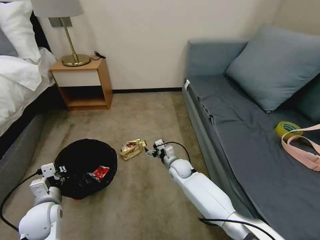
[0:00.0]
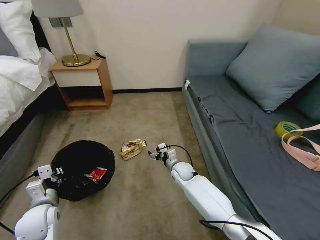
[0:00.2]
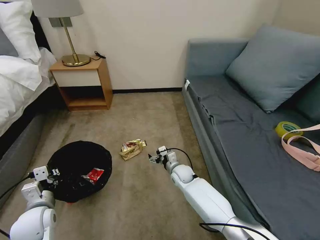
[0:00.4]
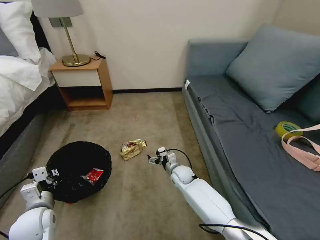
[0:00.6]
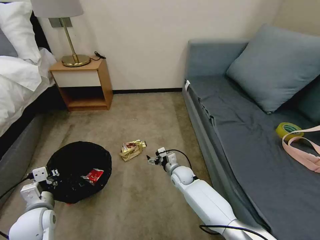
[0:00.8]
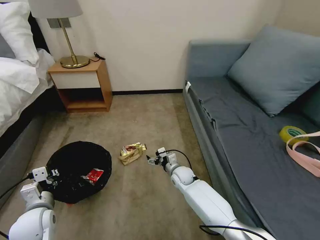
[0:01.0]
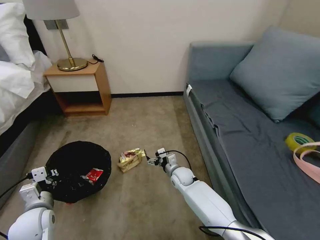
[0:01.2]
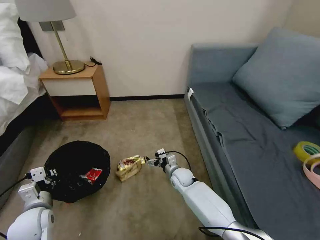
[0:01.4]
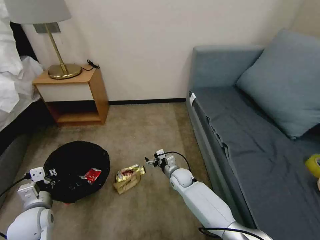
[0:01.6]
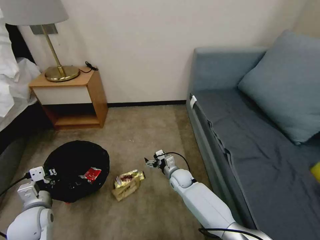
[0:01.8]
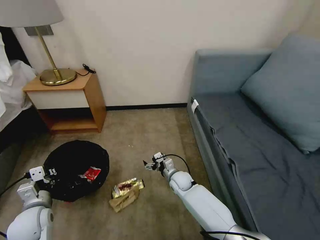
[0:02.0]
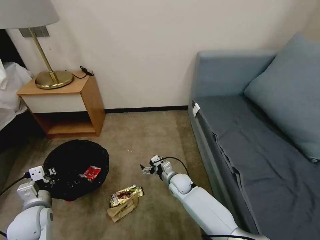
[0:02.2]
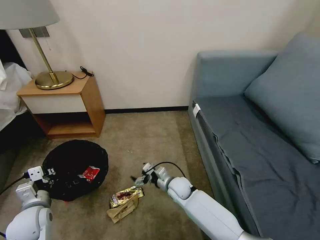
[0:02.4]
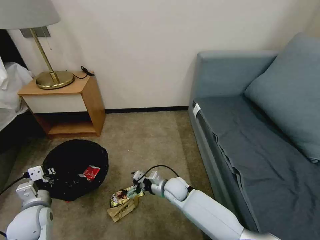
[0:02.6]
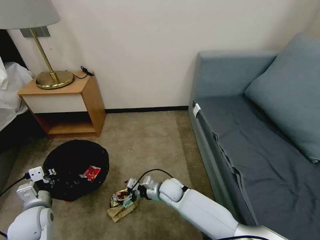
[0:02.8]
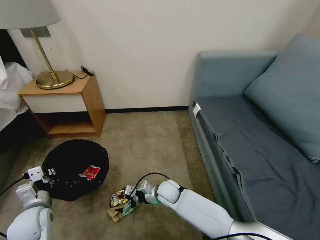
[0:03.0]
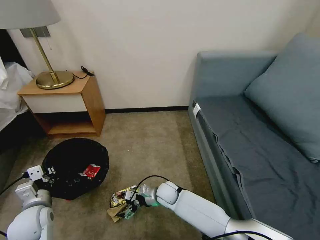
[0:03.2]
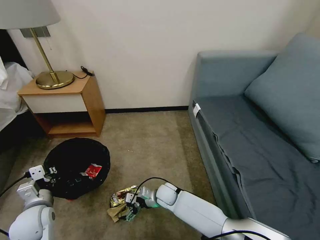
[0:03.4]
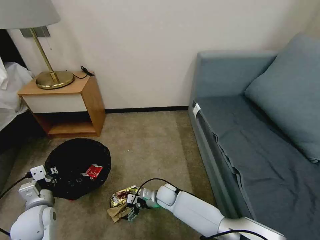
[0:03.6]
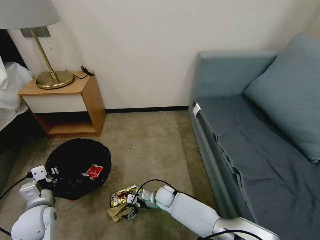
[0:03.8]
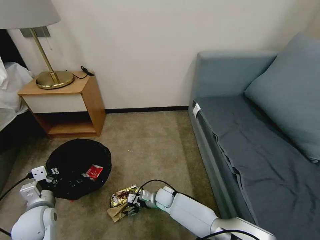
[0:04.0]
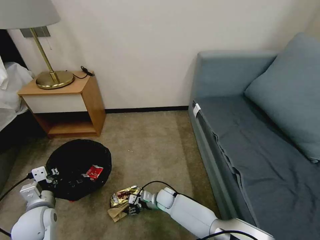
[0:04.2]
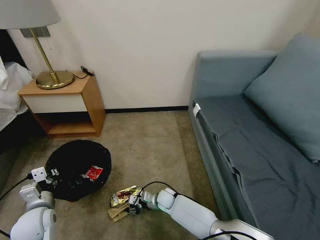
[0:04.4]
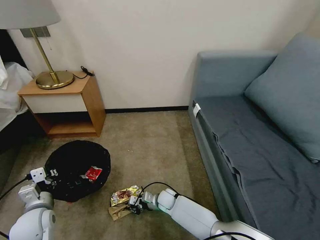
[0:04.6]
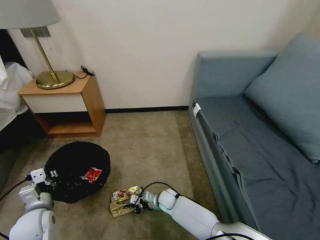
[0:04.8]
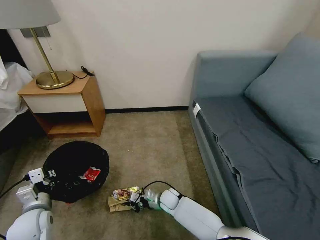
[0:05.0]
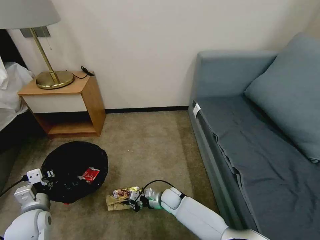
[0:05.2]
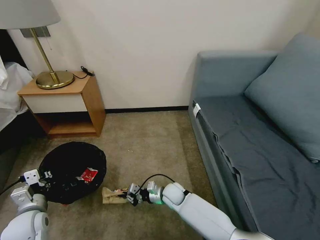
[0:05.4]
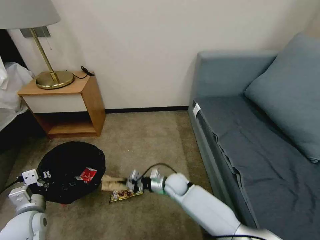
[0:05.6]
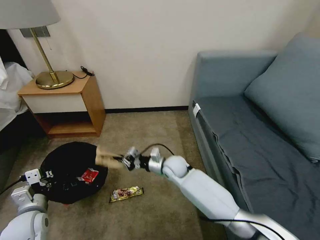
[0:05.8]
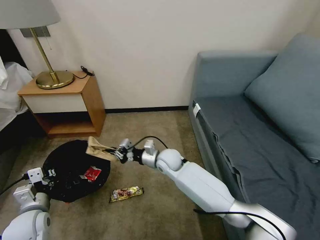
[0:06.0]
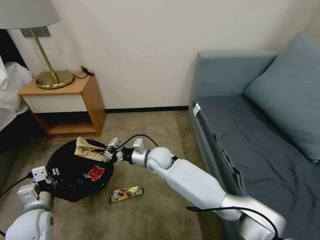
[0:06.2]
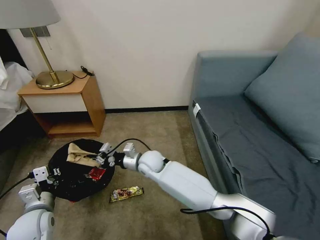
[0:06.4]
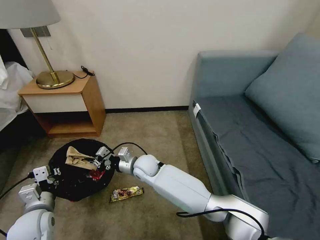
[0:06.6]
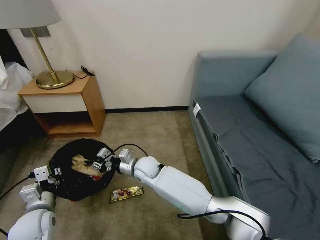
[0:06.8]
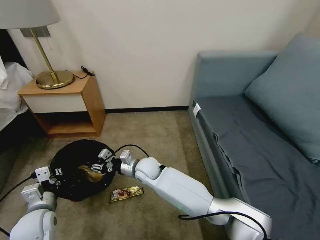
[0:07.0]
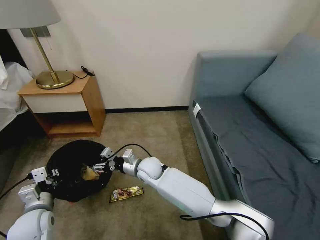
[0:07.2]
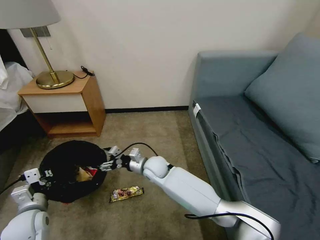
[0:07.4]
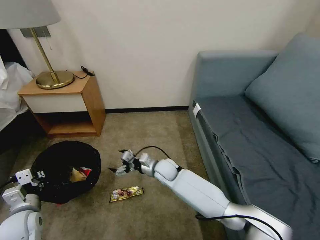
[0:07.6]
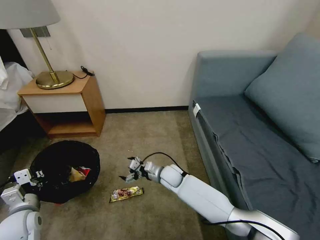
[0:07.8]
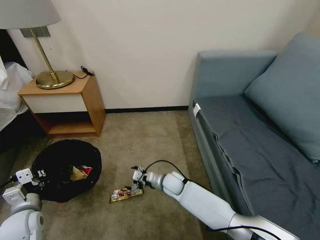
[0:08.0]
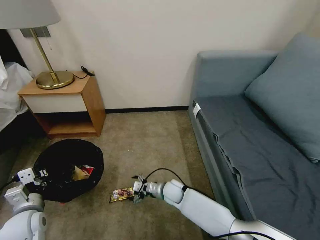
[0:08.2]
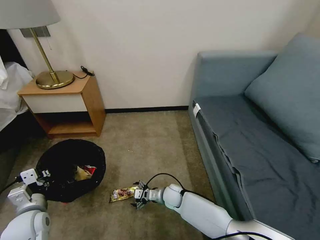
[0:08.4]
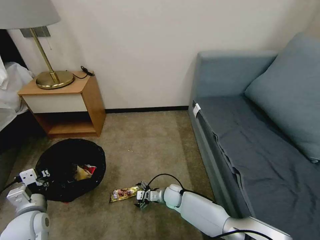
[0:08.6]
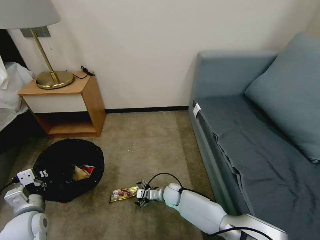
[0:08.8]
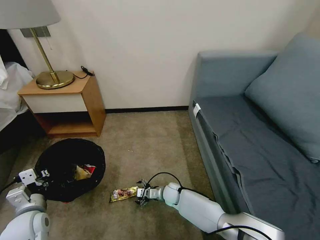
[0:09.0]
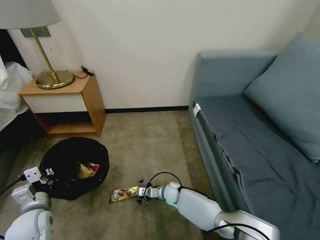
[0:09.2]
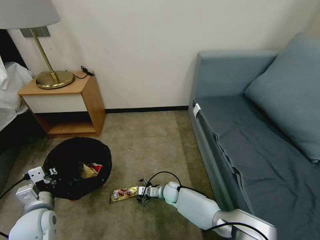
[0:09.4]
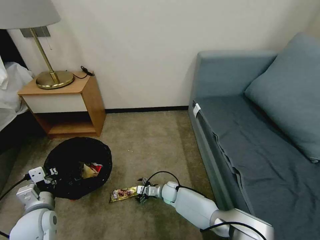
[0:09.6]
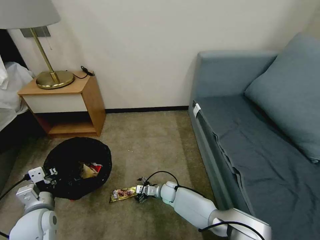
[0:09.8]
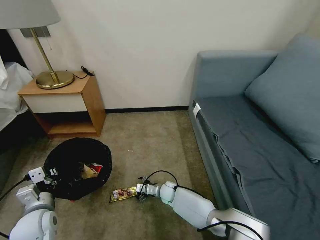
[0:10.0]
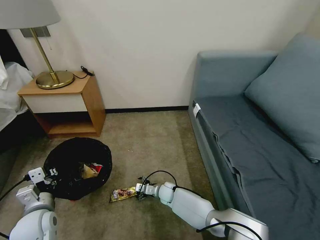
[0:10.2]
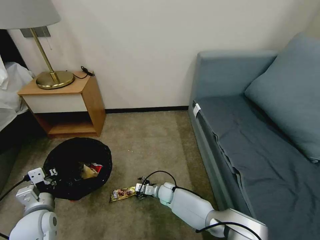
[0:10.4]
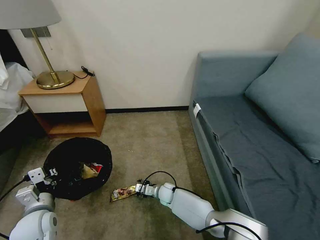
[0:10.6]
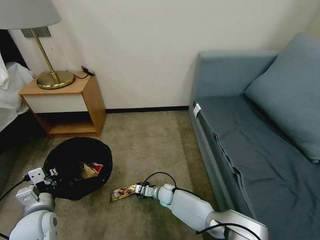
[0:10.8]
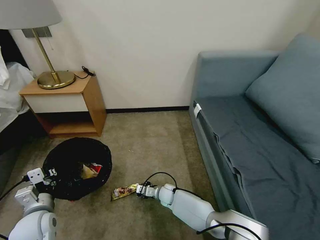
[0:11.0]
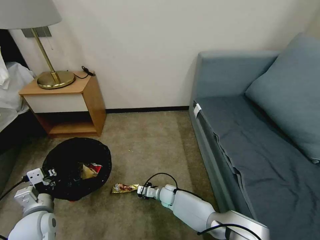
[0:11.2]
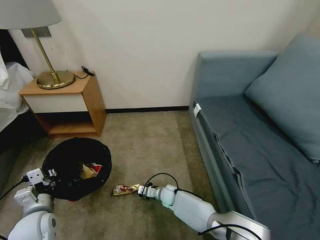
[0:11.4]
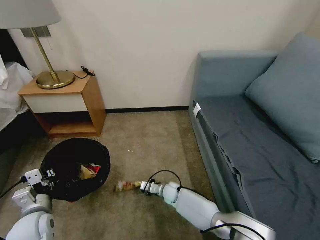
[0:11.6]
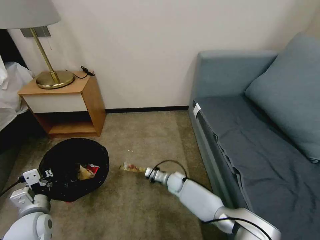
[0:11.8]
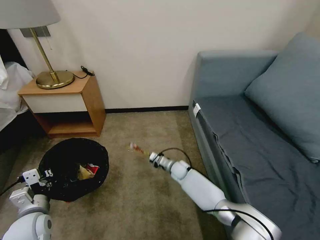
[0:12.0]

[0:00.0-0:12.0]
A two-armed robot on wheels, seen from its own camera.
Task of the whole recording: Pick up the trash bin, then pick up the garbage on the floor and place it into the trash bin.
0:01.6 to 0:03.0: The right gripper shifts some 10 cm to the left and backward.
0:03.0 to 0:04.4: The right gripper heads downward, covering approximately 10 cm, and closes.
0:04.4 to 0:06.0: The right gripper travels upward by roughly 20 cm, and closes.
0:06.0 to 0:07.6: The right gripper moves downward, about 5 cm, reaches approximately 10 cm to the left, then returns, and opens its fingers.
0:07.6 to 0:09.0: The right gripper is displaced downward by some 15 cm.
0:09.0 to 0:10.4: The grippers move only a little.
0:10.4 to 0:12.0: The right gripper travels forward, to the right and upward by some 10 cm, and closes up.

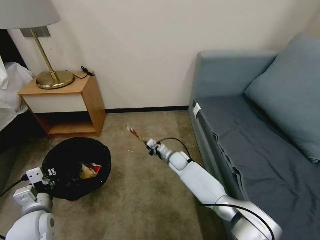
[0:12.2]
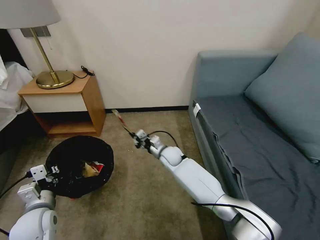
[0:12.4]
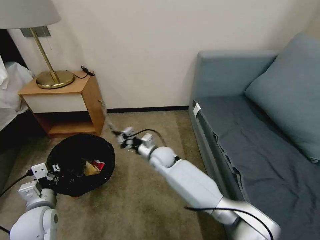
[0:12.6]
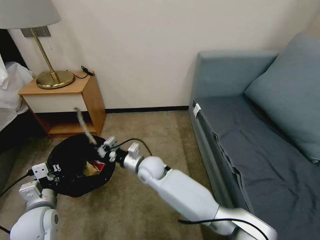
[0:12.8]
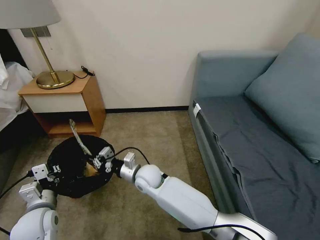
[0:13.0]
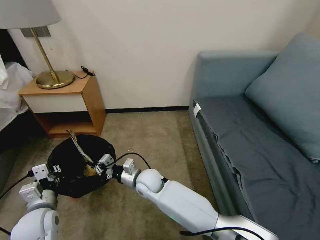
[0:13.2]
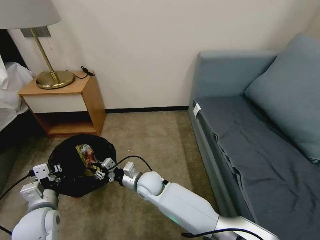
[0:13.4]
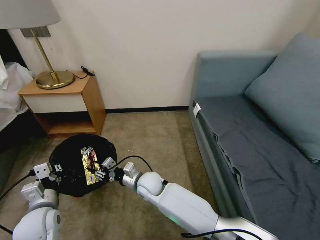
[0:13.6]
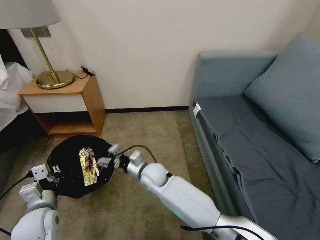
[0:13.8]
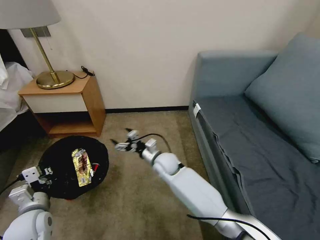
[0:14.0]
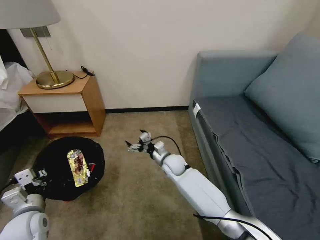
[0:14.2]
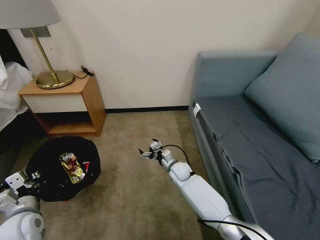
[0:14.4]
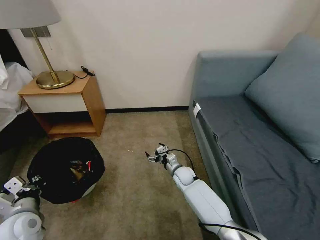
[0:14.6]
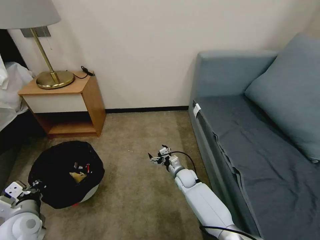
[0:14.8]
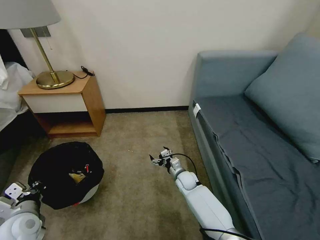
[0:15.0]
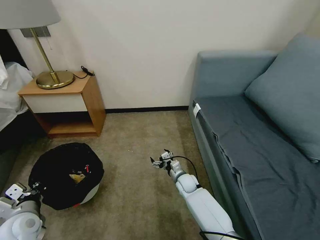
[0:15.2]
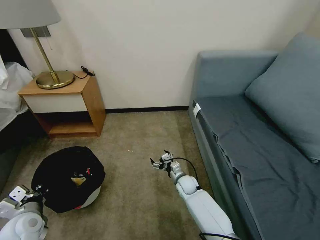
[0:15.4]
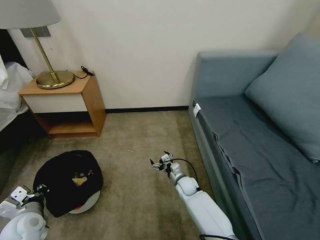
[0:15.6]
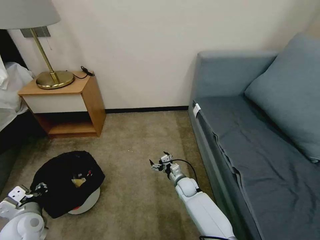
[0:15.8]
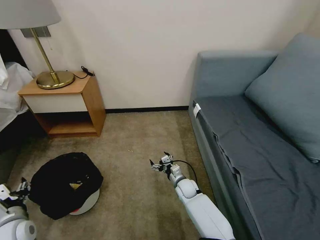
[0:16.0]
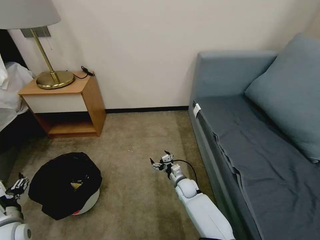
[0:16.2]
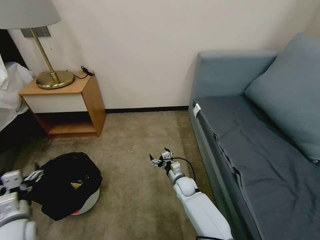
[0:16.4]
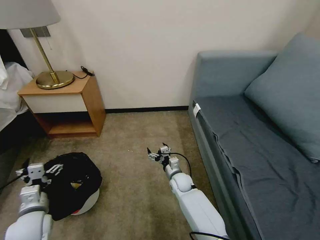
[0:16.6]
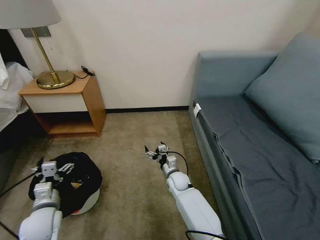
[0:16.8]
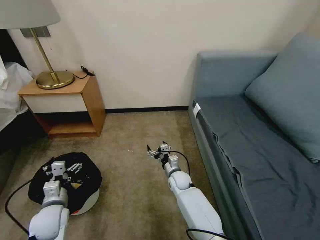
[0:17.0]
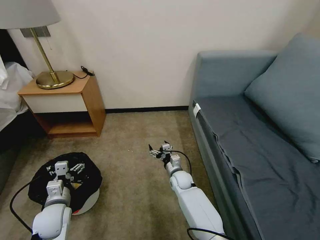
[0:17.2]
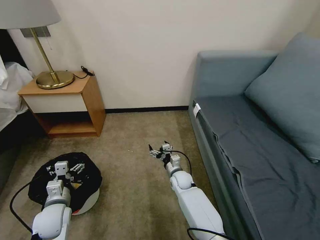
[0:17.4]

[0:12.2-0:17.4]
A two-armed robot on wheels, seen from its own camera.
Task of the whole recording: Pick up the trash bin, then pick up the garbage on the floor and place it into the trash bin.
0:12.2 to 0:14.0: The right gripper goes roughly 15 cm upward, to the left and backward, and opens.
0:14.0 to 0:15.6: The left gripper moves some 5 cm; the right gripper moves downward and to the right, about 20 cm.
0:15.6 to 0:17.4: The left gripper goes some 5 cm to the right, and opens its fingers.

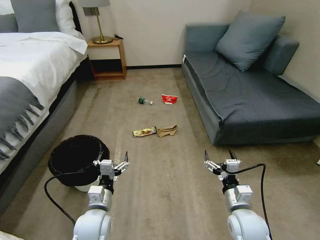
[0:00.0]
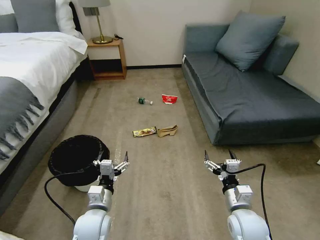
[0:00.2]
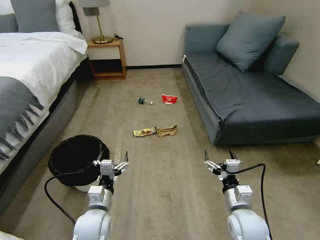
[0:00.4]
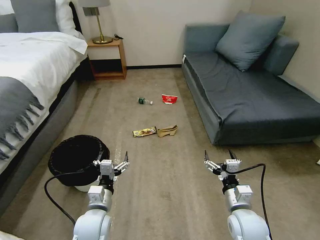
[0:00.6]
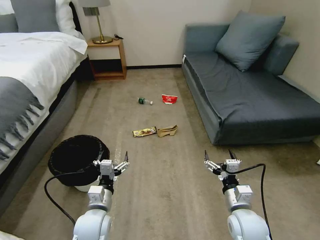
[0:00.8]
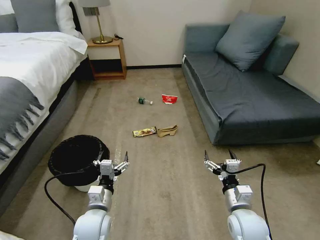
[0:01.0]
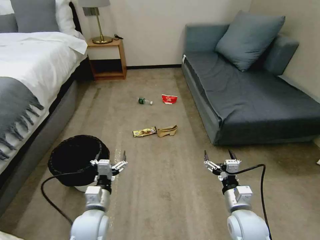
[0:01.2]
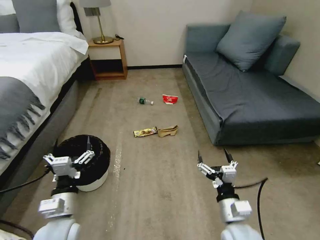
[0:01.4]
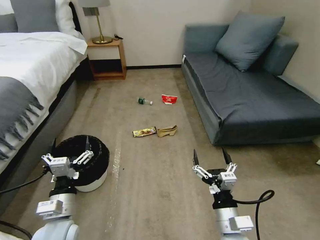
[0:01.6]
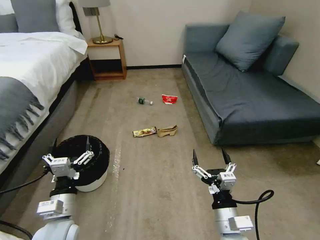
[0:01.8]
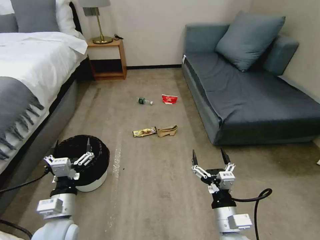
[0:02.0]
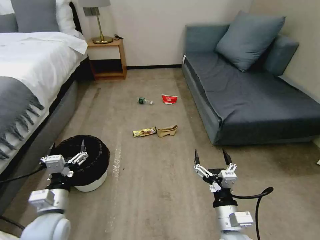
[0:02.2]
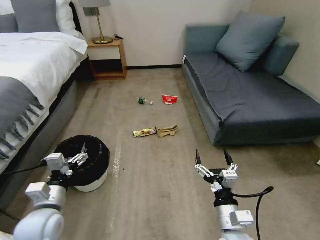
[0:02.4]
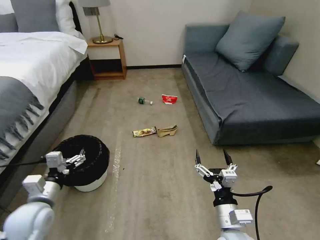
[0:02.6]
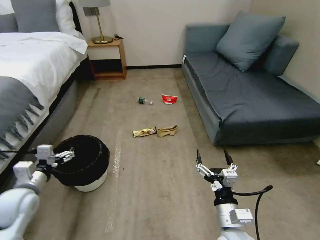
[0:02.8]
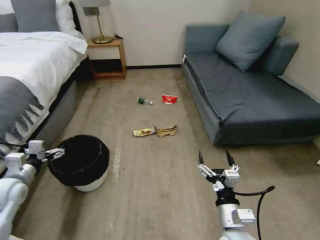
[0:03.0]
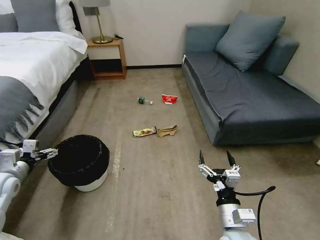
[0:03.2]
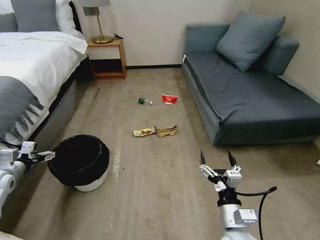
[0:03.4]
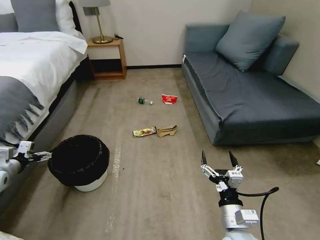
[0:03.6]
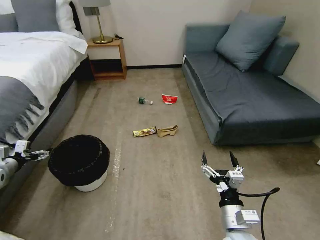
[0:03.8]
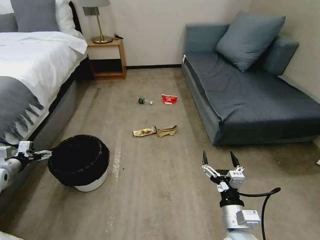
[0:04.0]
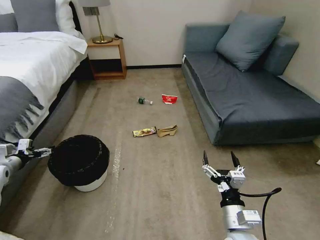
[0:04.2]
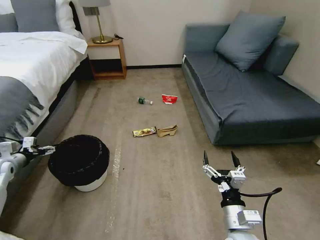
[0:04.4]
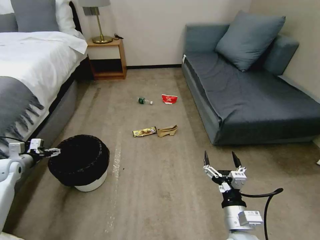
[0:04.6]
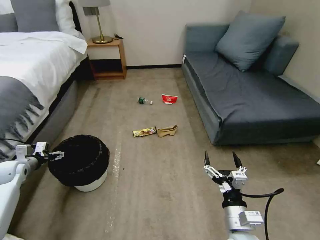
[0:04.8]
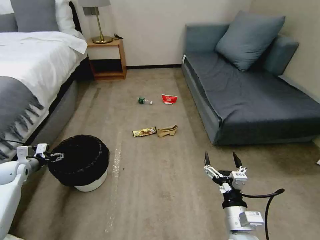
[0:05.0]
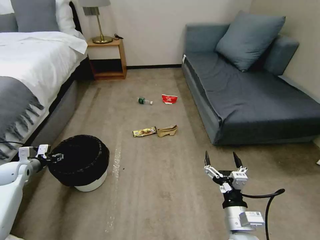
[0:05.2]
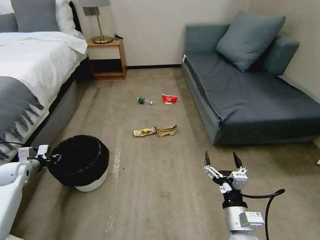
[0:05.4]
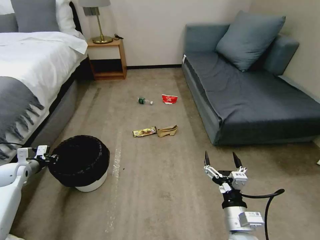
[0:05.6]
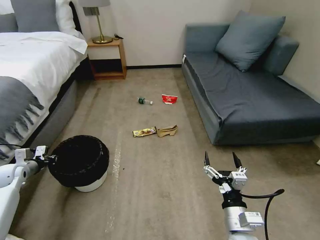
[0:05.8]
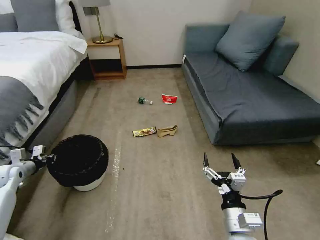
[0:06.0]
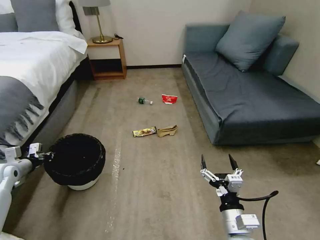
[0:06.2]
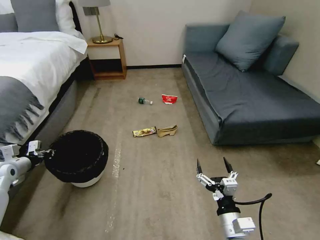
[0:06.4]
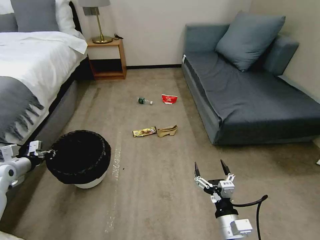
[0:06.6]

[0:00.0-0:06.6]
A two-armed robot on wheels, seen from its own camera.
Task of the whole recording: Pick up the trash bin, then pick up the garbage on the floor and place it into the trash bin.
0:01.6 to 0:03.2: The left gripper heads to the left and forward, covering approximately 25 cm.
0:03.2 to 0:05.0: The left gripper travels forward, downward and to the left by approximately 10 cm.
0:05.0 to 0:06.6: The left gripper ends up approximately 5 cm from where it was, and closes up.
